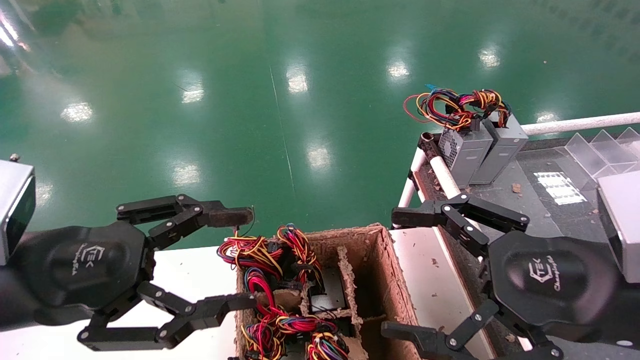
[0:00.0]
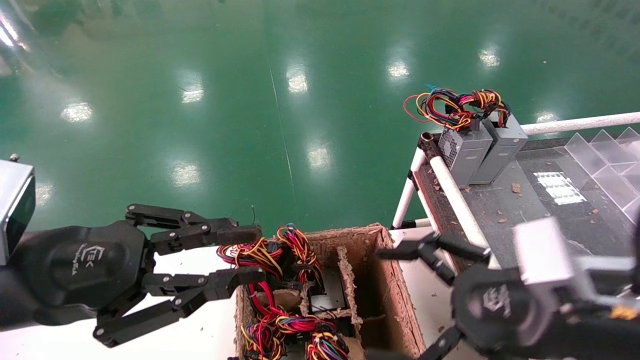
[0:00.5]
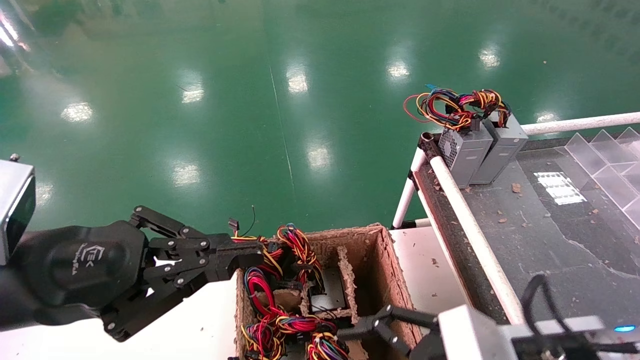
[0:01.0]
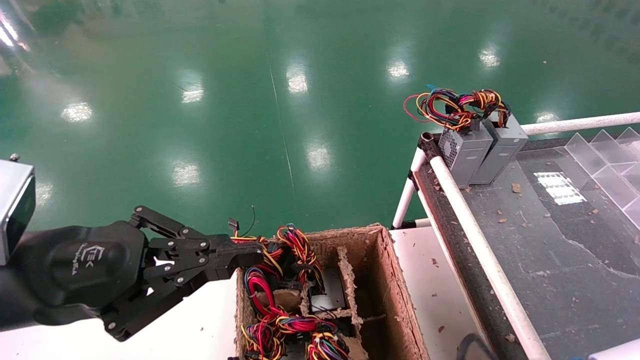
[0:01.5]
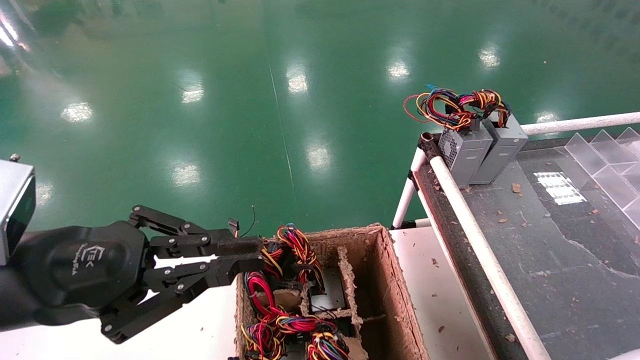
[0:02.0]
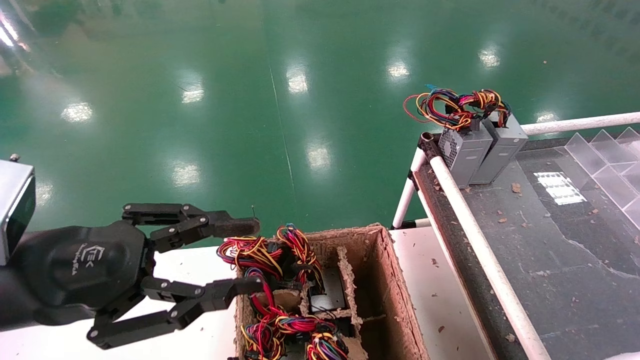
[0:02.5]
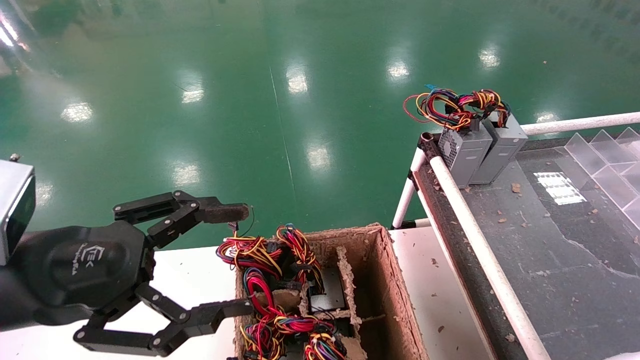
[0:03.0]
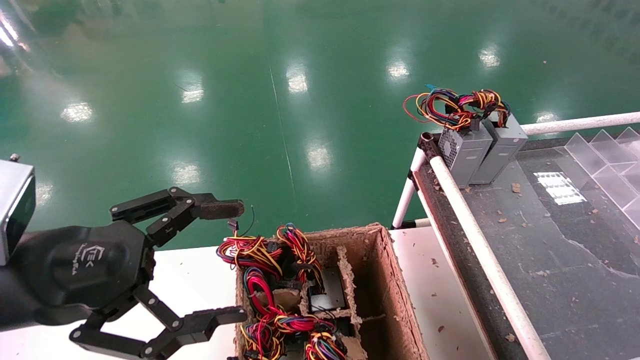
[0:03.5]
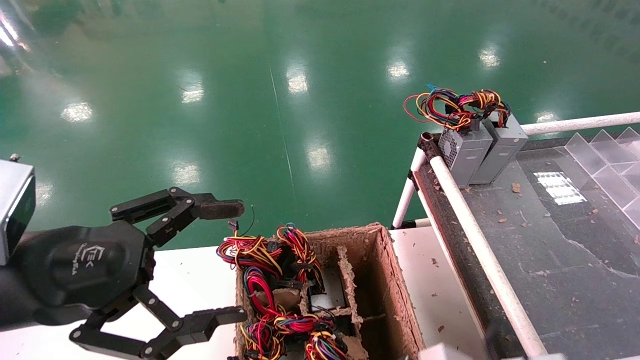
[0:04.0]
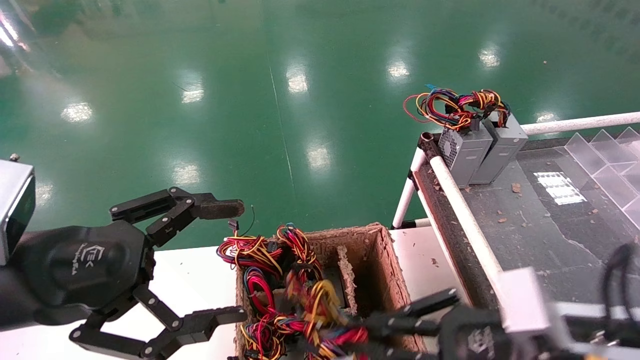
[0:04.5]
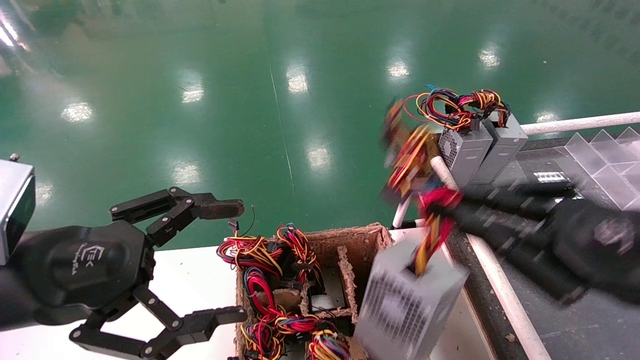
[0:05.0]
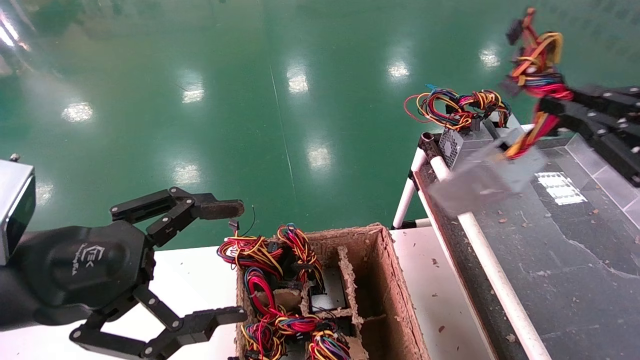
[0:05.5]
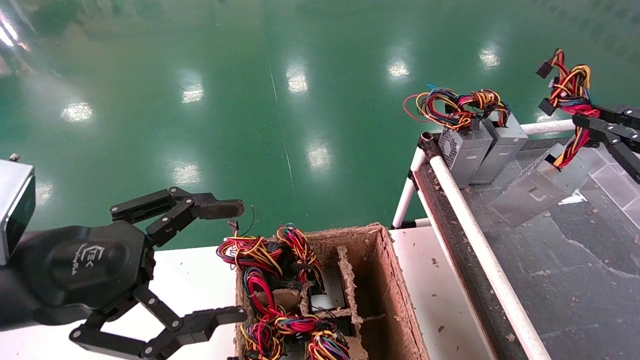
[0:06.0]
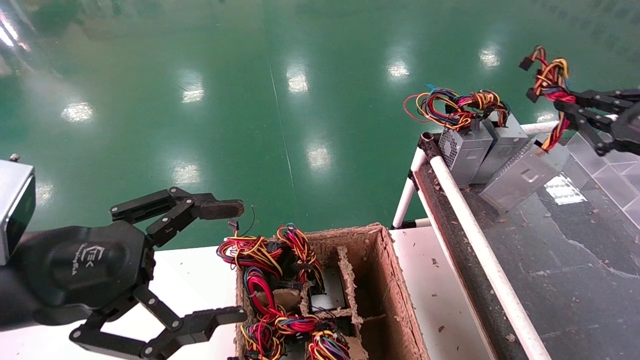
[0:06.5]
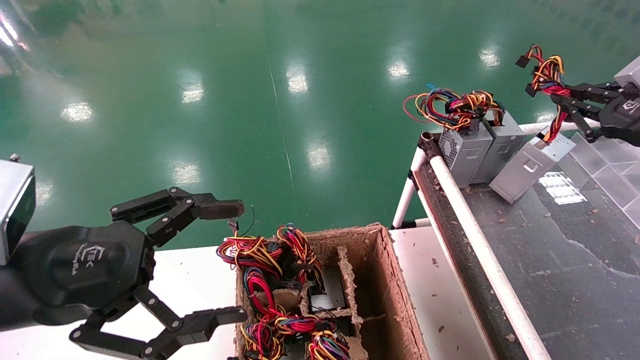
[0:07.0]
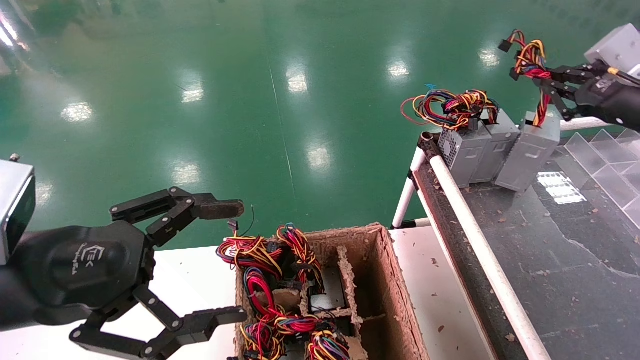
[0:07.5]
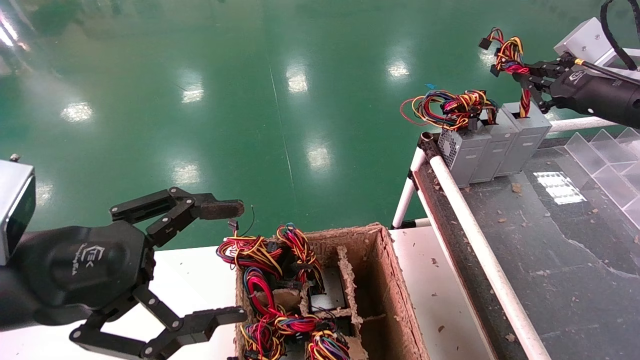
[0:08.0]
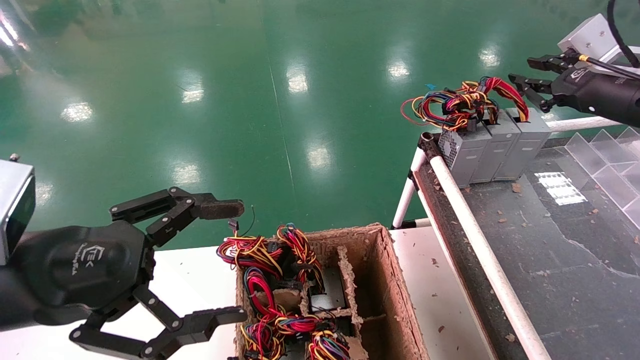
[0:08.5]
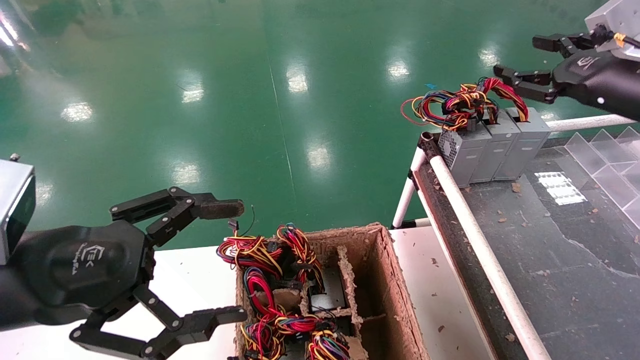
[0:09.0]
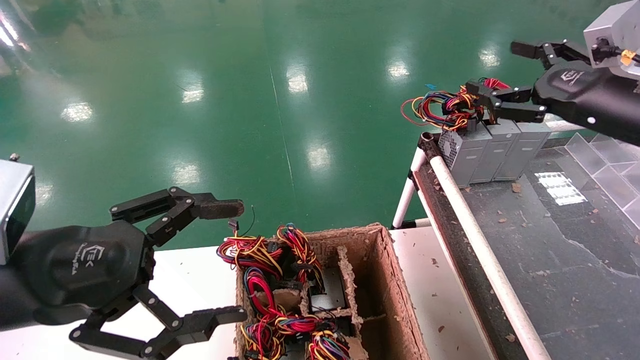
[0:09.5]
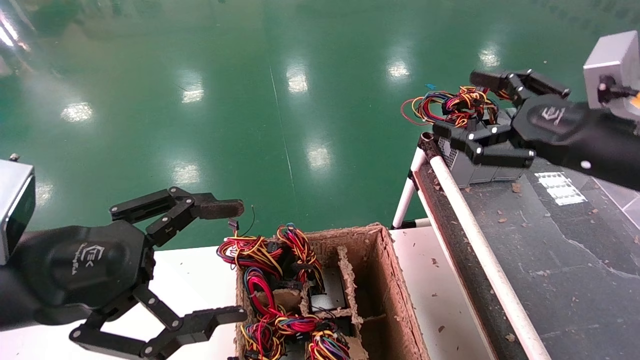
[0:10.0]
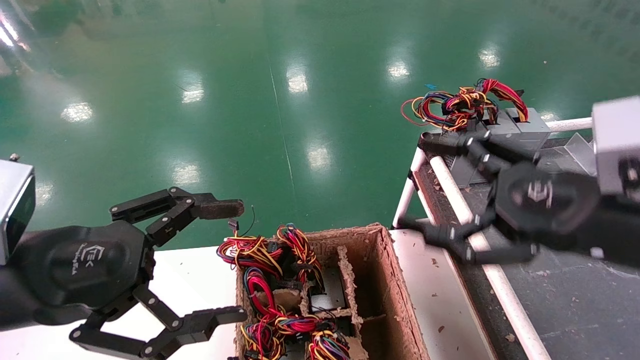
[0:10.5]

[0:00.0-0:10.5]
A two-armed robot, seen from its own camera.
Step, 0:00.5 to 0:03.5: Grab and lift the power supply from the large box.
Step, 0:04.0 to 0:08.5: Place the power supply on the operating table.
0:00.0 to 0:02.0: The left gripper closes up. Meanwhile the right gripper shifts approximately 20 cm downward and to the left.
0:02.0 to 0:04.0: The right gripper closes its fingers, while the left gripper opens up.
0:04.0 to 0:06.5: The right gripper is displaced to the right, upward and forward by roughly 30 cm.
0:06.5 to 0:08.5: The right gripper travels forward and upward by roughly 10 cm.
0:08.5 to 0:10.5: The right gripper moves backward, to the left and downward, roughly 20 cm, and opens.

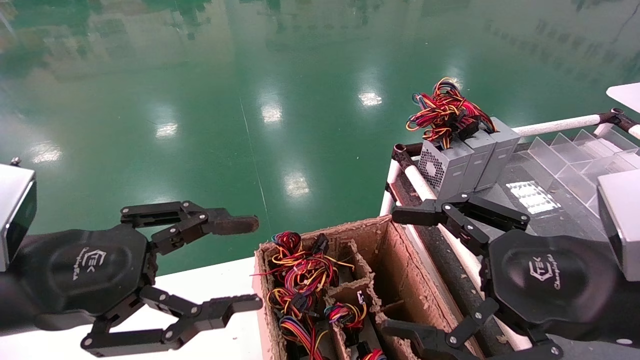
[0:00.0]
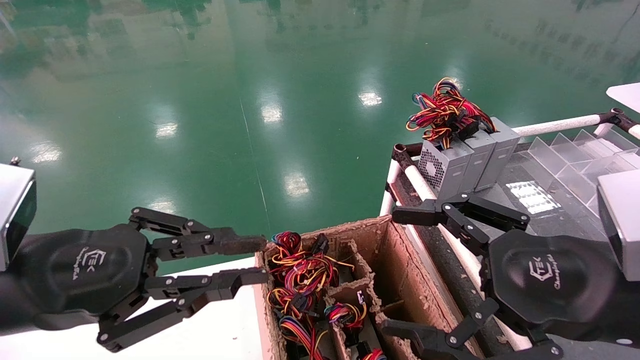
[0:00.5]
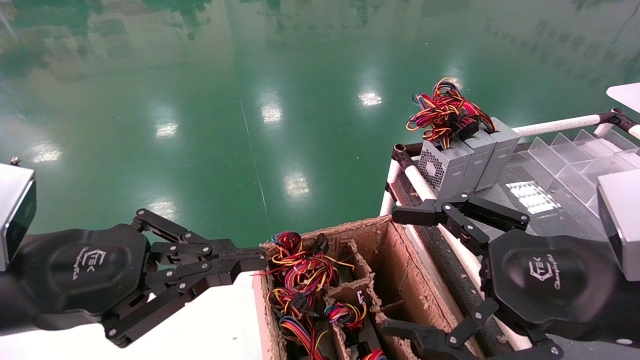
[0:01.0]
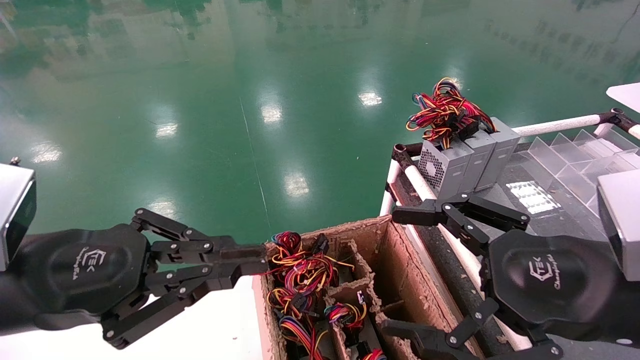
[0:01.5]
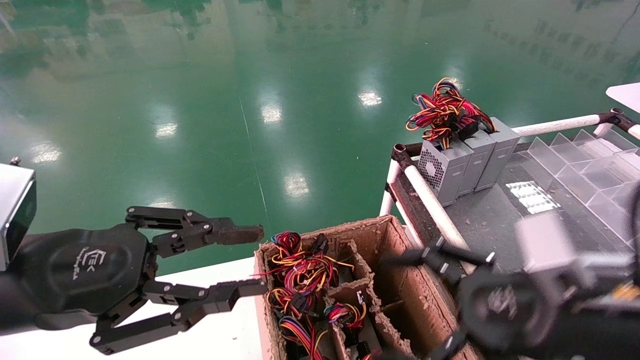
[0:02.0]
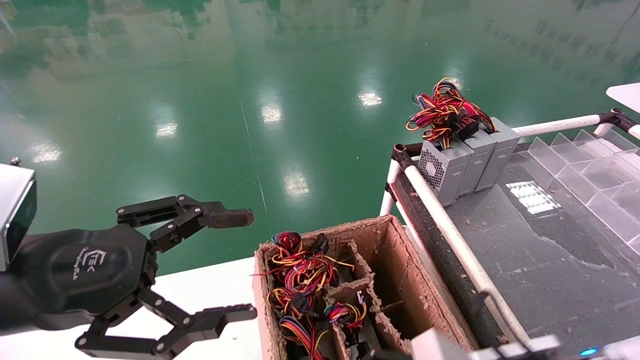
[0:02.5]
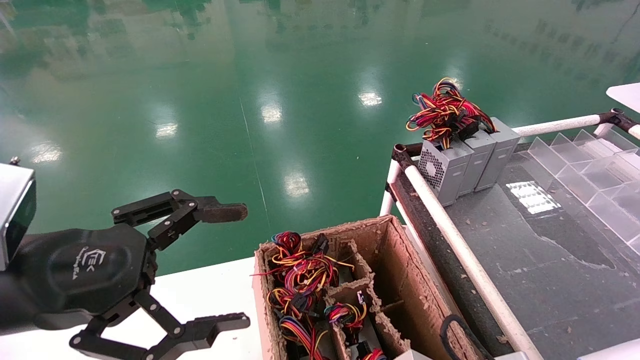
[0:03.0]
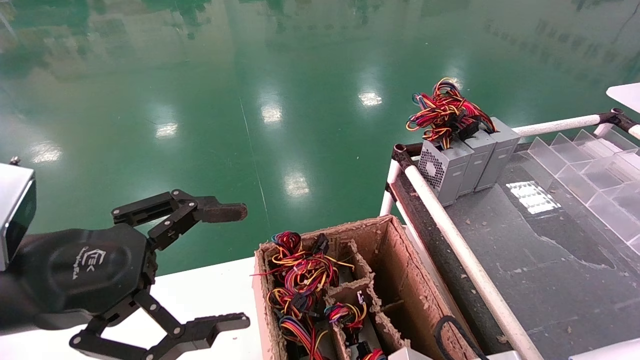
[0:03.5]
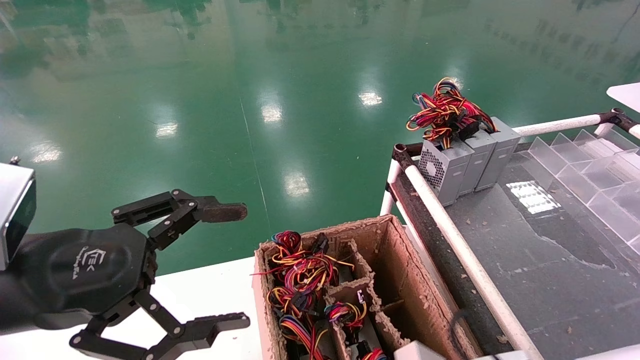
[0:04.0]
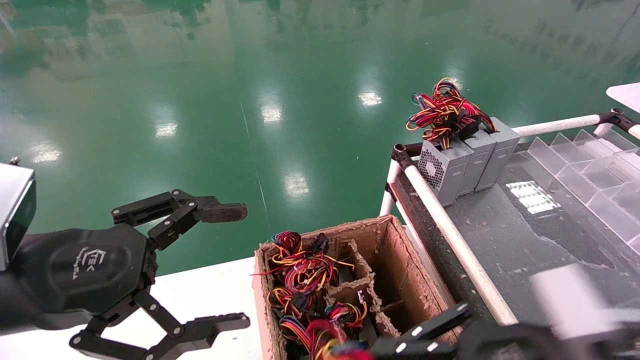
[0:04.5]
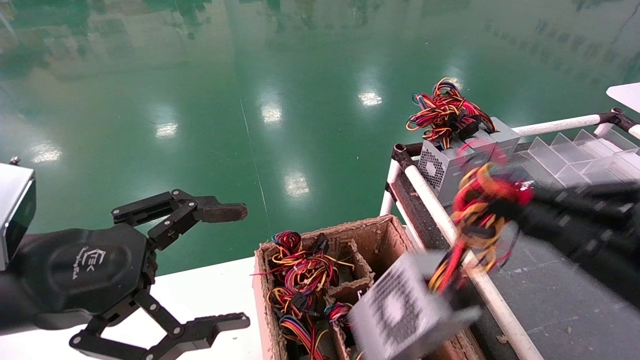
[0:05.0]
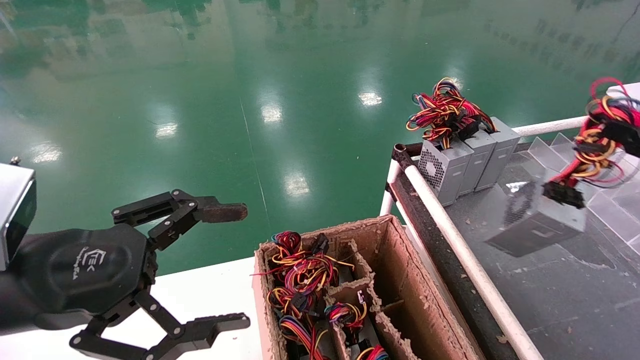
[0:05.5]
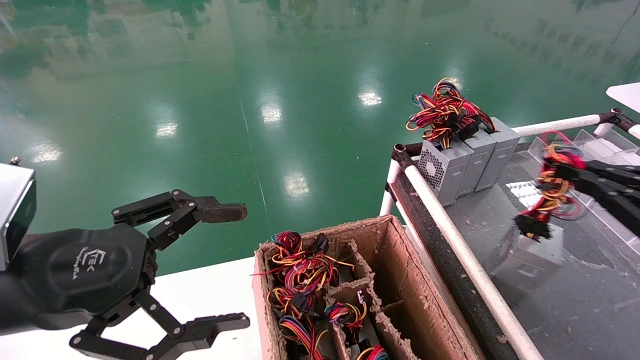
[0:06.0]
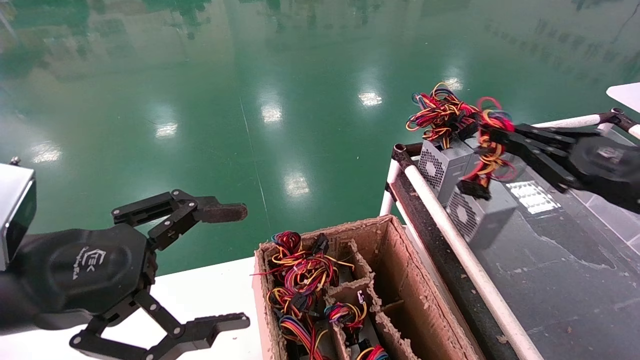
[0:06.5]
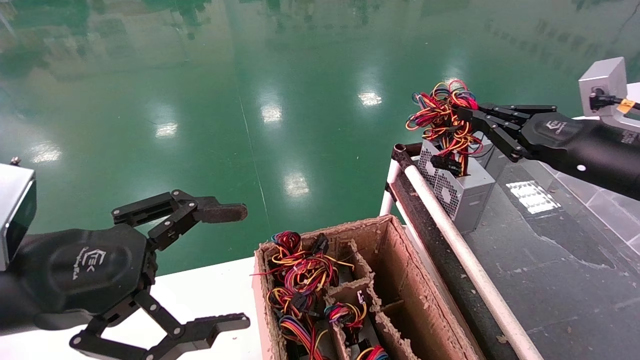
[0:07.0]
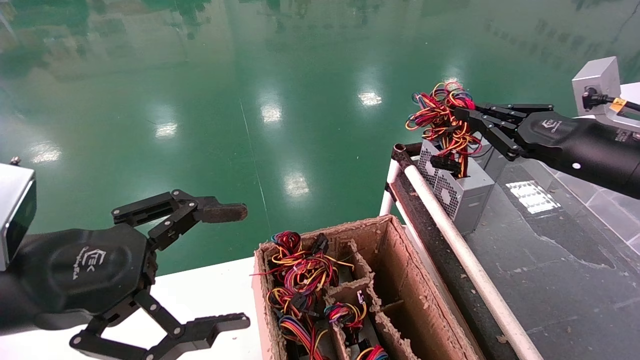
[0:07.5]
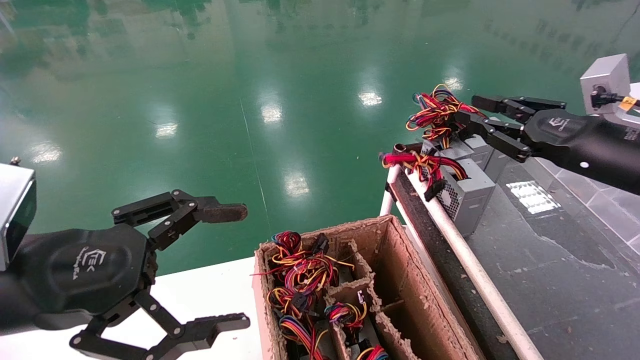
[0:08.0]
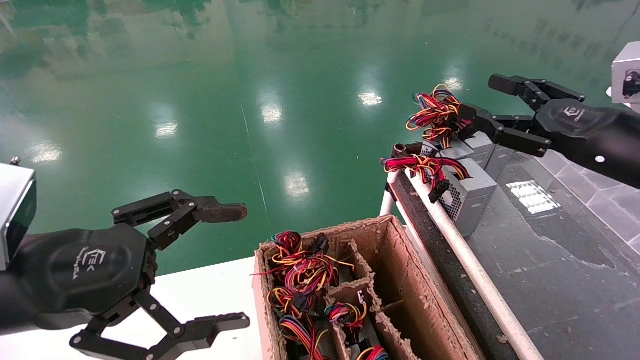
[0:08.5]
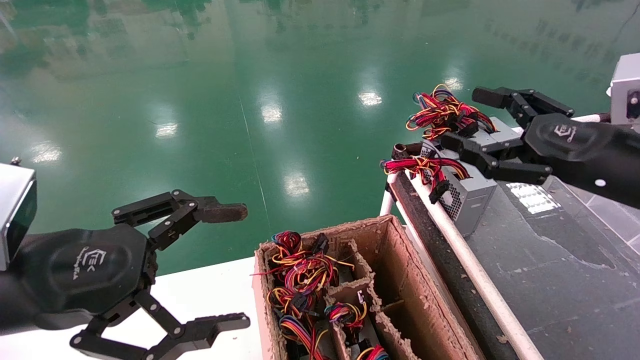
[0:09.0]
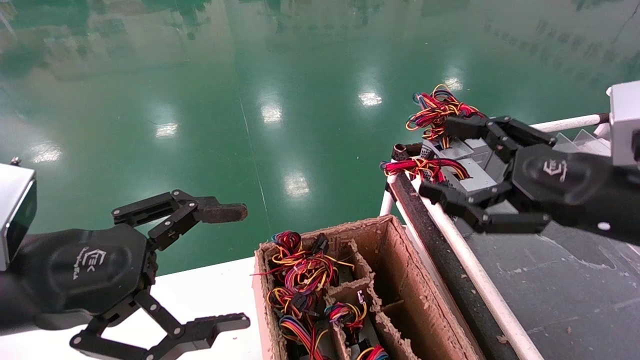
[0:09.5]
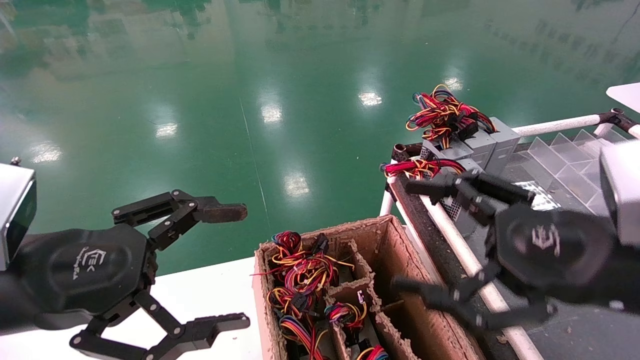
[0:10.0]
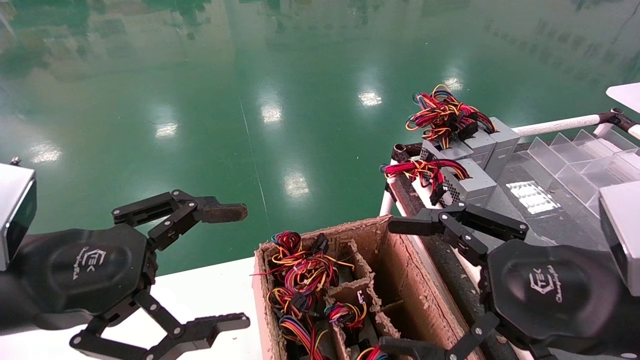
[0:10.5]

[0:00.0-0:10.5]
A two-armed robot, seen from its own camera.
Step, 0:01.0 to 0:04.0: Grab and lift the power supply from the large box.
Step, 0:04.5 to 0:07.5: Place the power supply on the operating table.
0:00.0 to 0:02.0: The left gripper closes.
0:02.0 to 0:04.0: The right gripper goes some 10 cm downward and to the left, and closes. Meanwhile the left gripper opens.
0:04.0 to 0:06.5: The right gripper is displaced to the right, upward and forward by roughly 25 cm.
0:06.5 to 0:08.5: The right gripper ends up some 5 cm from where it was, and opens up.
0:08.5 to 0:10.5: The right gripper shifts some 20 cm backward and to the left, and opens its fingers.
